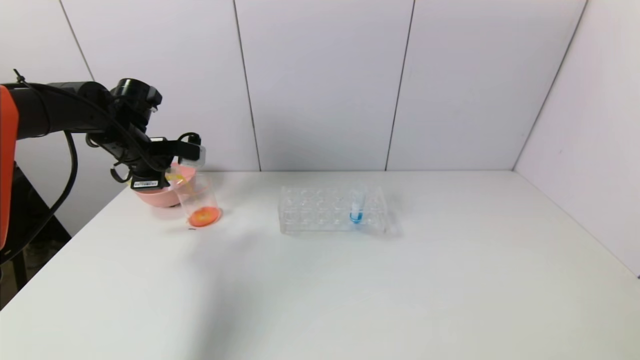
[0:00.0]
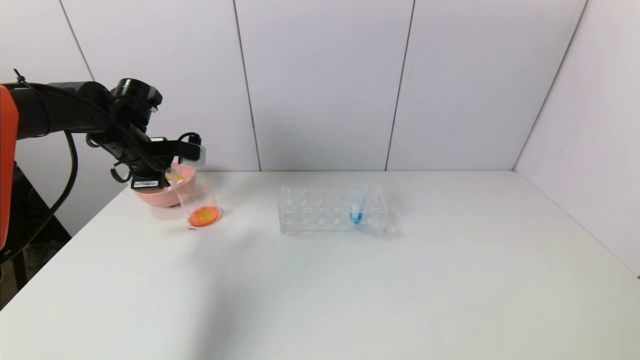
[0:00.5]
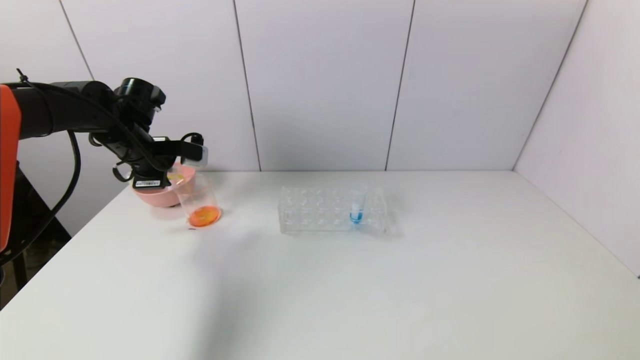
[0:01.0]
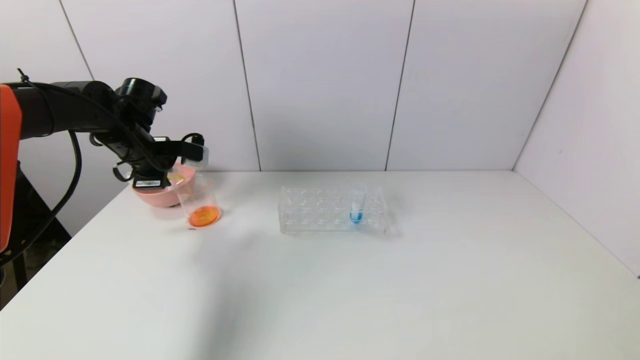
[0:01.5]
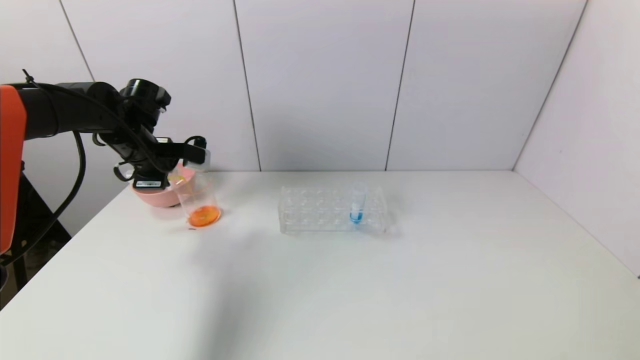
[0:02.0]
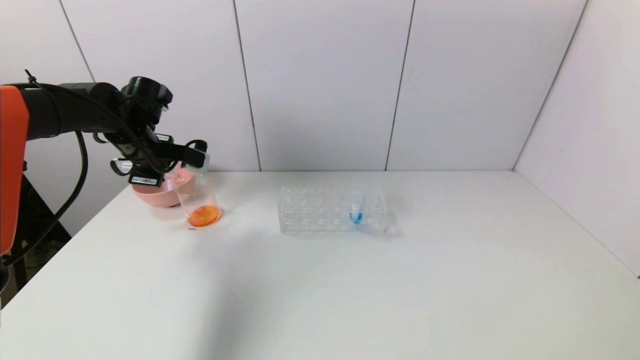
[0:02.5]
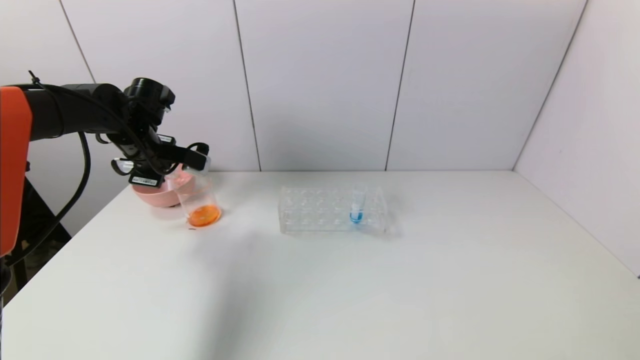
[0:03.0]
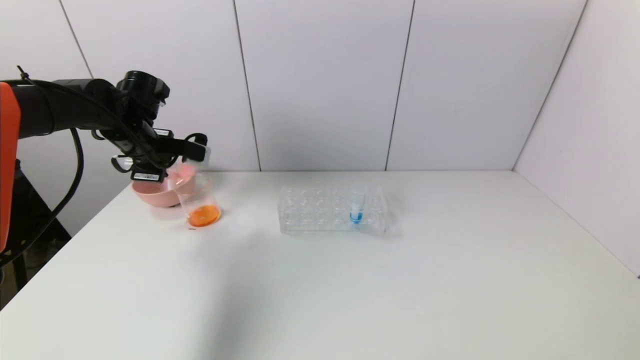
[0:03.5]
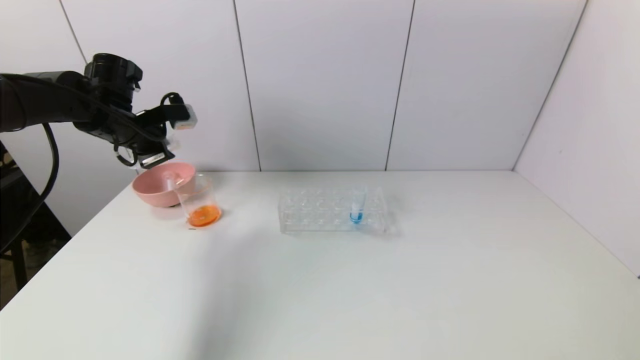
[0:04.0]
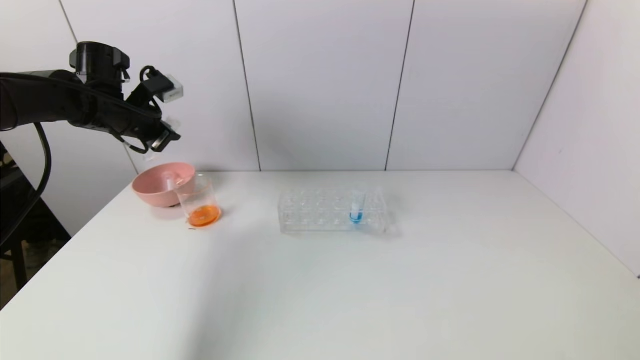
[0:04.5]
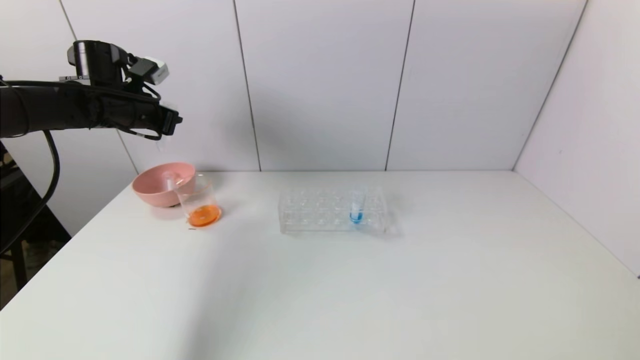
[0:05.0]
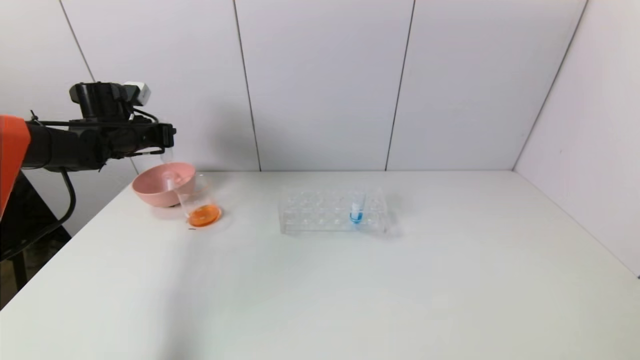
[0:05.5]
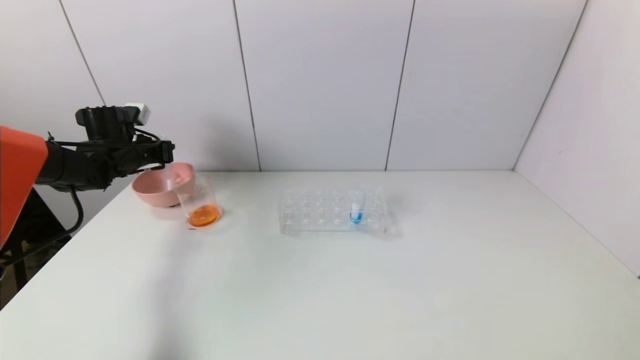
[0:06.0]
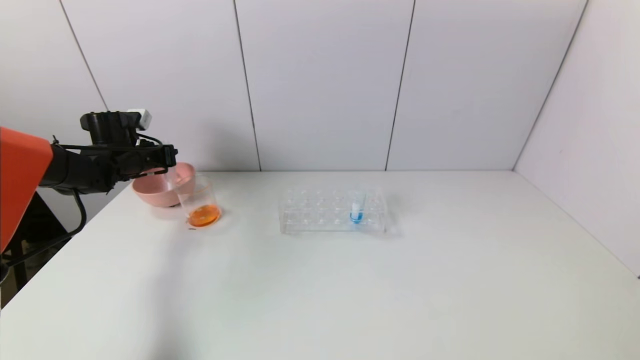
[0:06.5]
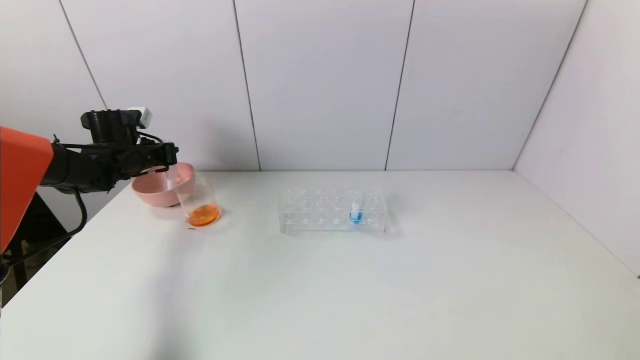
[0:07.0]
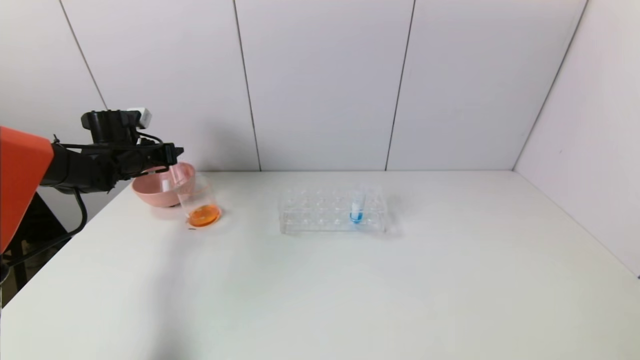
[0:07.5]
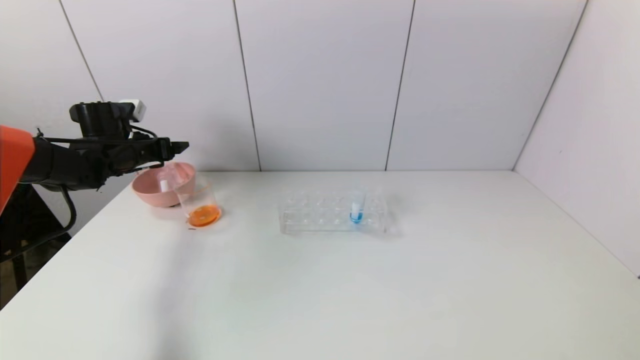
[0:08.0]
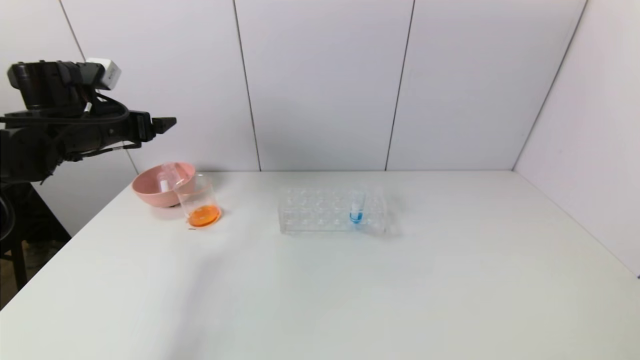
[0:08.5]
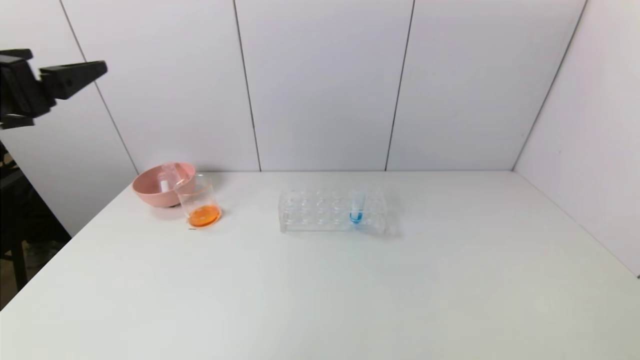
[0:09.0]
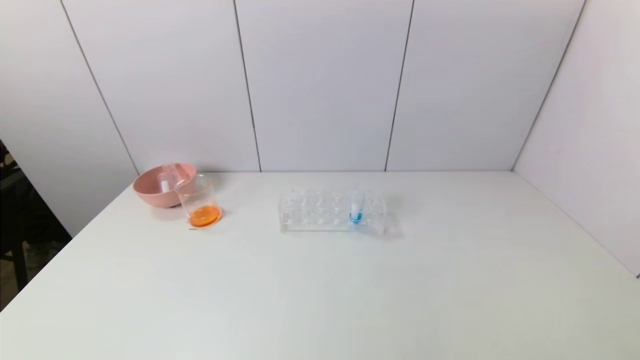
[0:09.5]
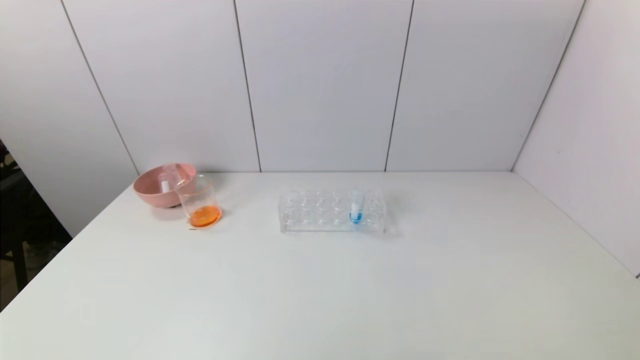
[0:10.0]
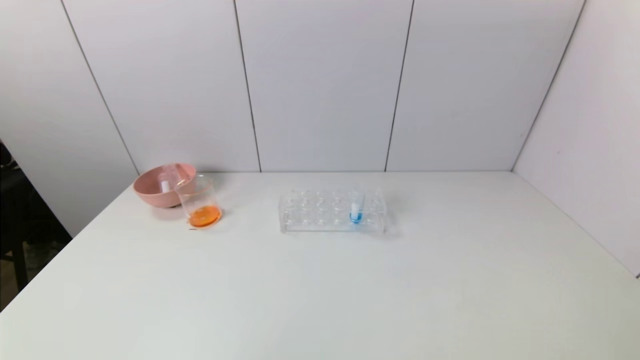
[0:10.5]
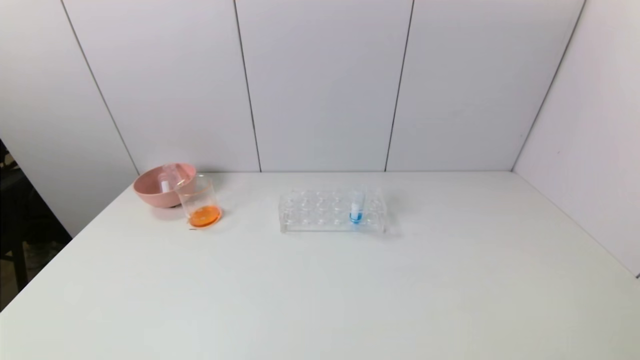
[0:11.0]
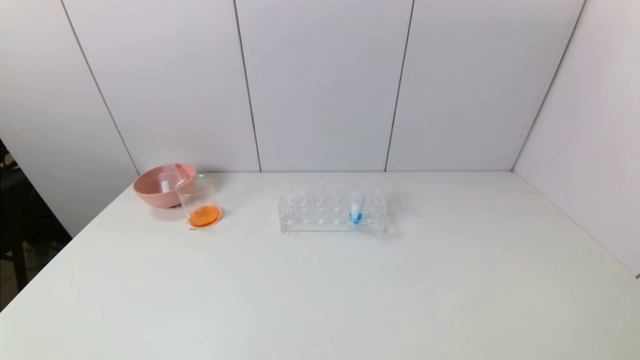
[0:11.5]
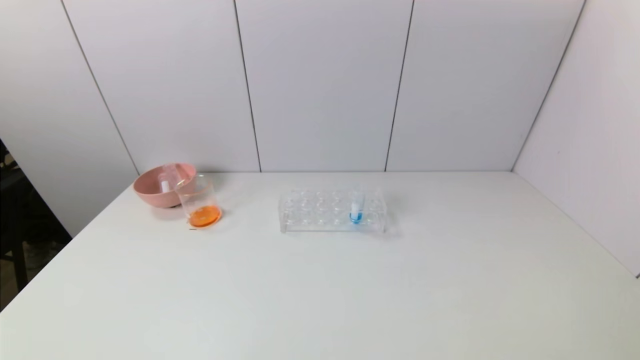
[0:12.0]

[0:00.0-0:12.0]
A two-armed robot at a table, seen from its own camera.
Task of the whole recording: pick up the test tube with yellow pigment and the test tube with red pigment by grippers and pour them into the beaker.
Step, 0:00.0 to 0:03.0: Pour the yellow reagent into the graduated cylinder with the left gripper.
Step, 0:03.5 to 0:07.5: Place the test tube into the pink bowl with the left gripper.
0:00.0 to 0:02.0: Both grippers stay put.
0:04.0 to 0:06.0: The left gripper heads downward and to the left, covering some 10 cm.
0:06.0 to 0:08.0: The left gripper opens its fingers.
0:08.0 to 0:10.0: The left gripper shifts about 50 cm backward.
